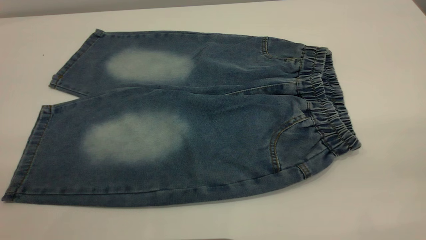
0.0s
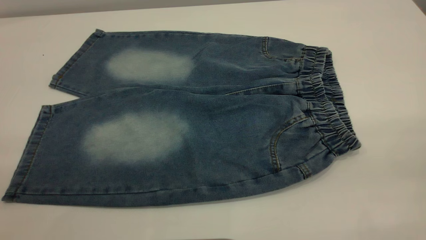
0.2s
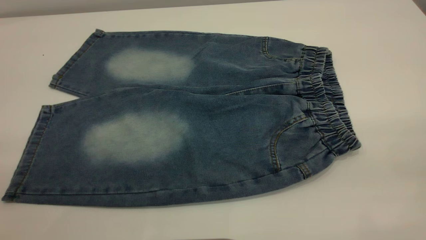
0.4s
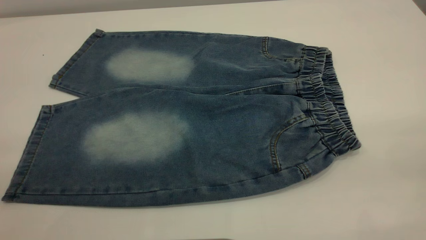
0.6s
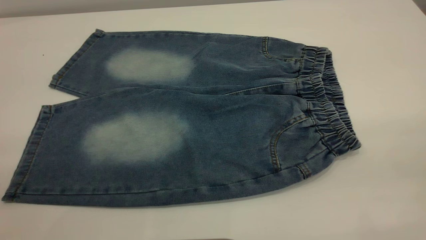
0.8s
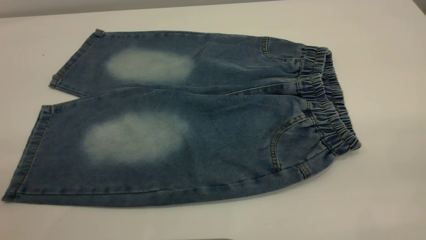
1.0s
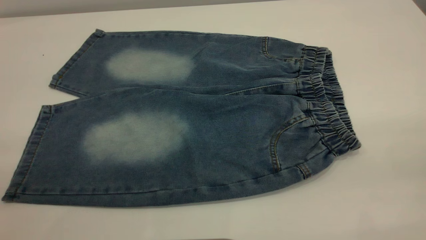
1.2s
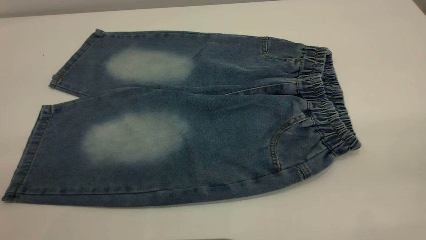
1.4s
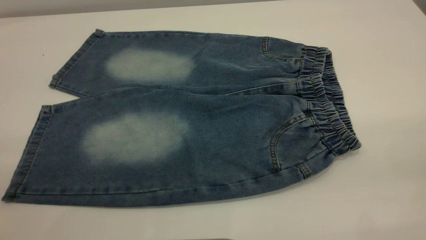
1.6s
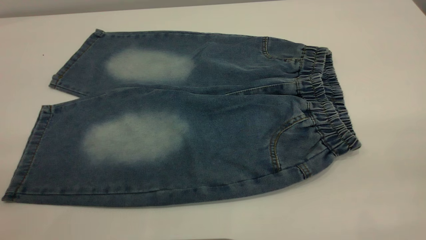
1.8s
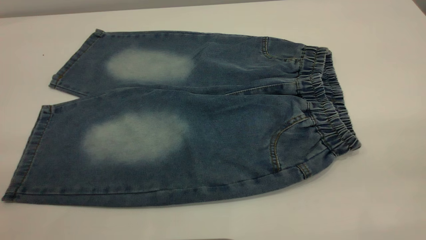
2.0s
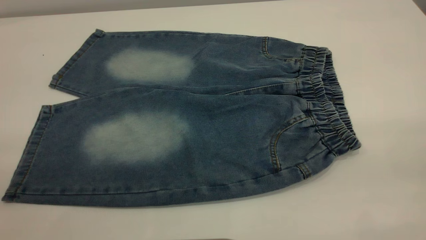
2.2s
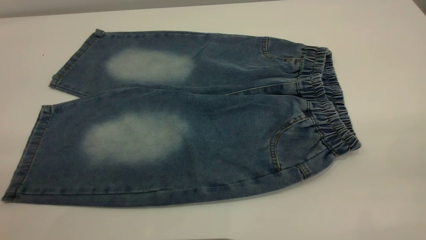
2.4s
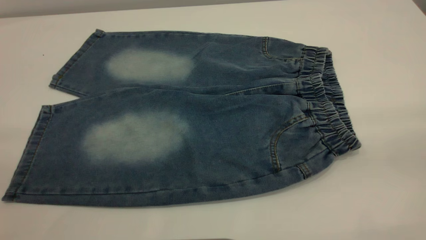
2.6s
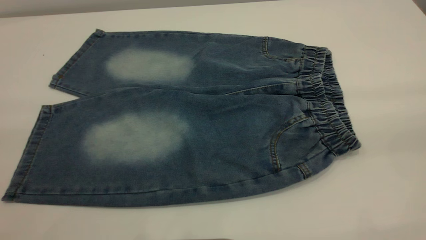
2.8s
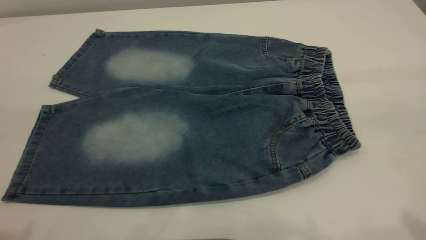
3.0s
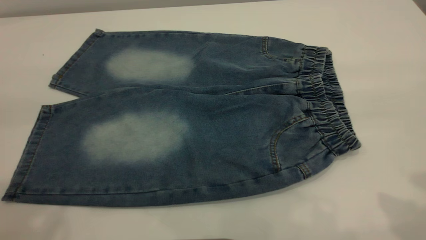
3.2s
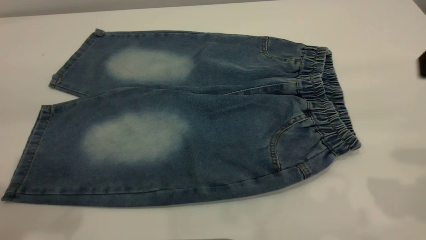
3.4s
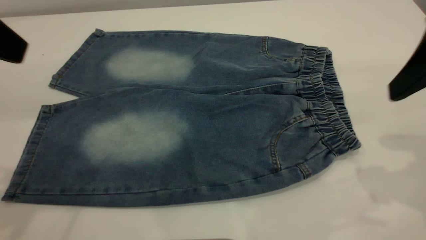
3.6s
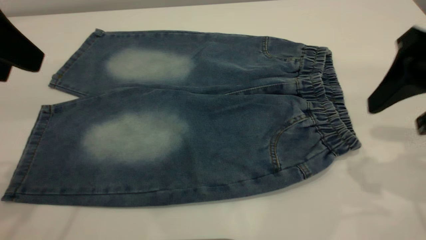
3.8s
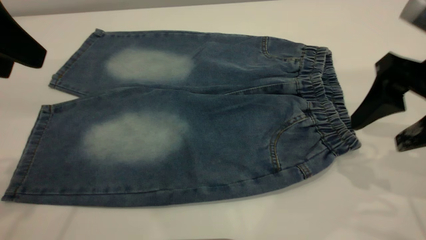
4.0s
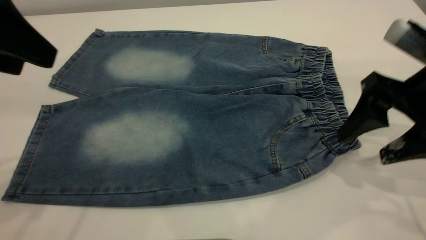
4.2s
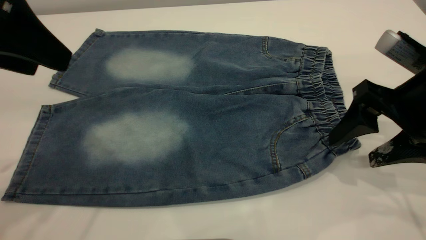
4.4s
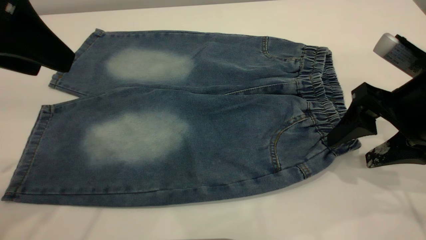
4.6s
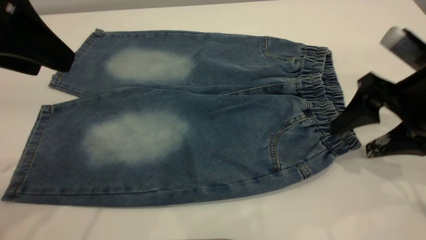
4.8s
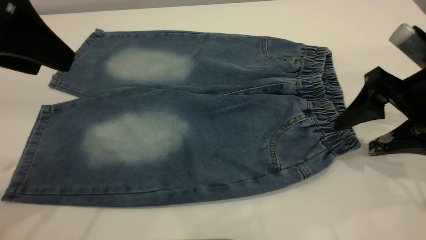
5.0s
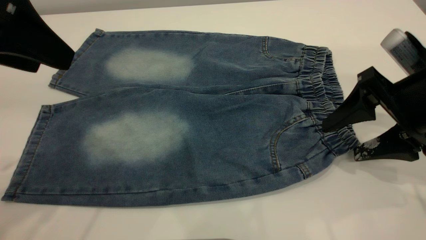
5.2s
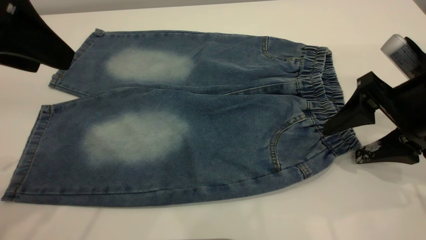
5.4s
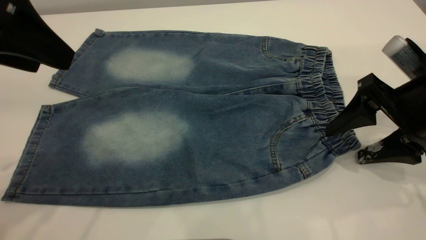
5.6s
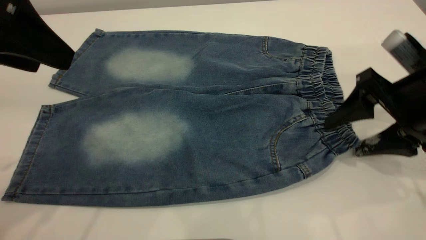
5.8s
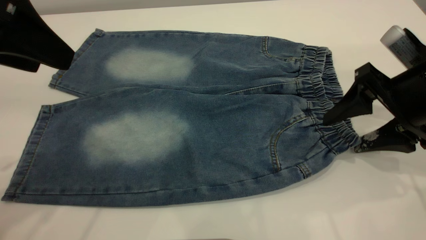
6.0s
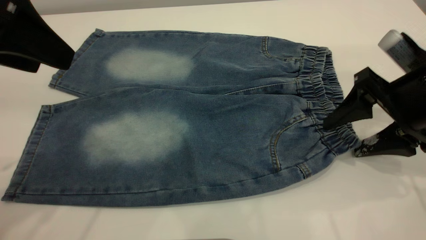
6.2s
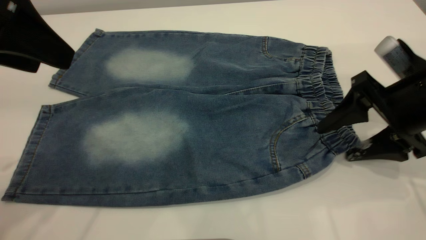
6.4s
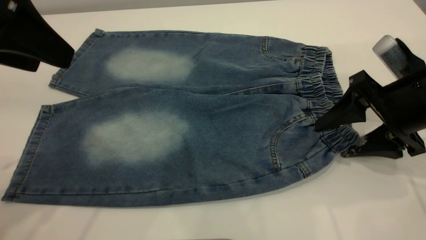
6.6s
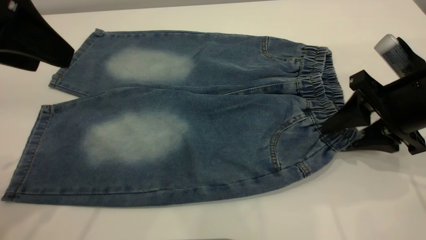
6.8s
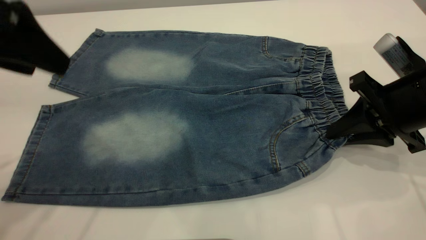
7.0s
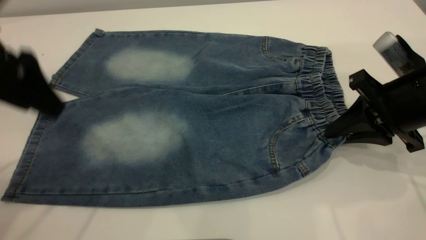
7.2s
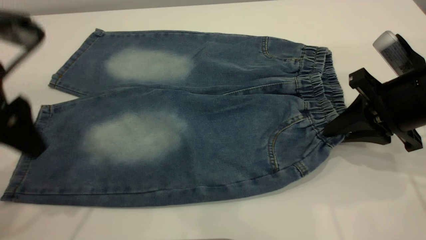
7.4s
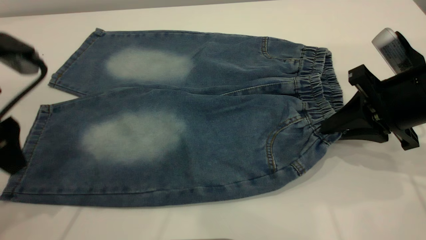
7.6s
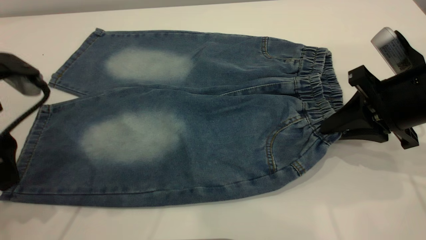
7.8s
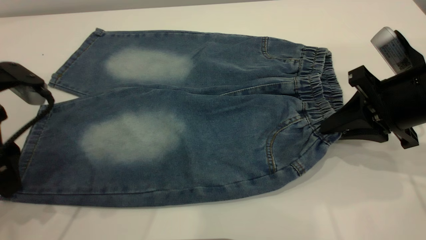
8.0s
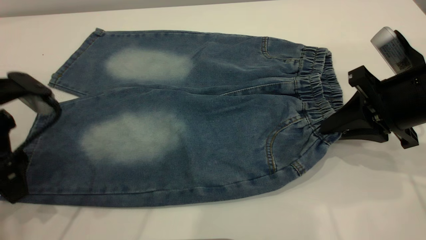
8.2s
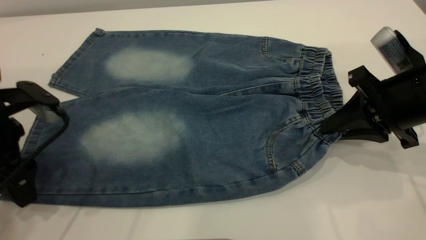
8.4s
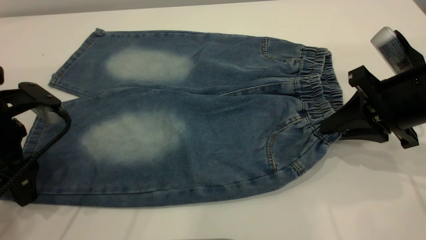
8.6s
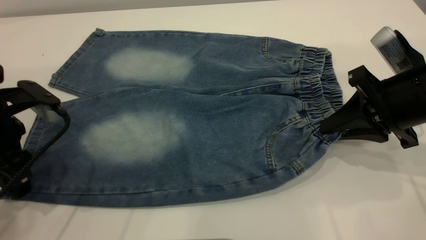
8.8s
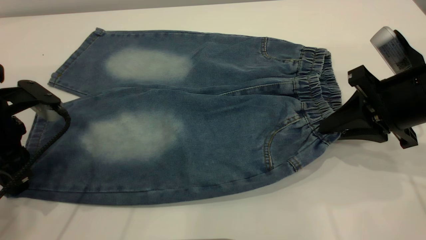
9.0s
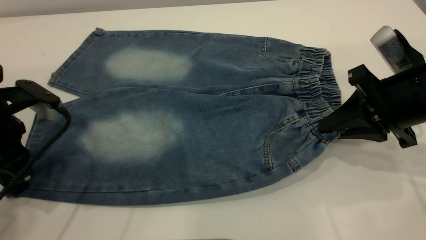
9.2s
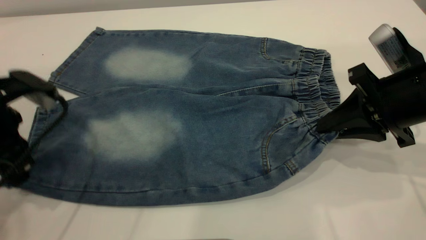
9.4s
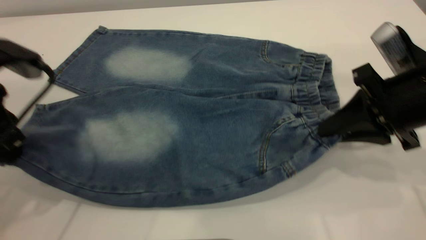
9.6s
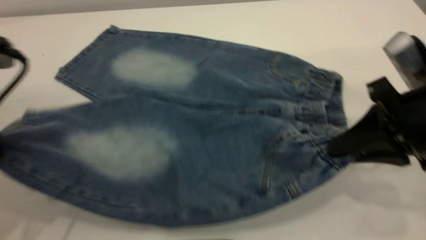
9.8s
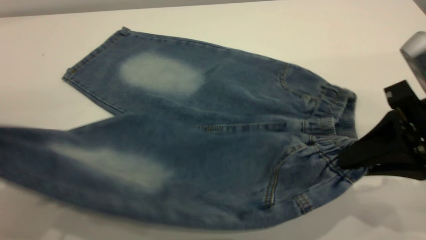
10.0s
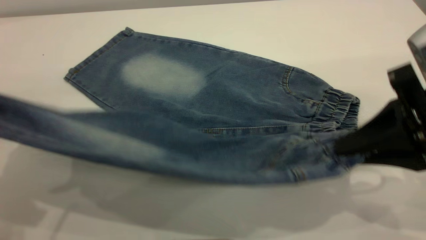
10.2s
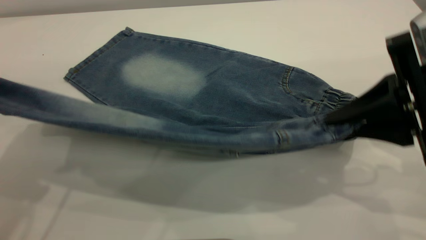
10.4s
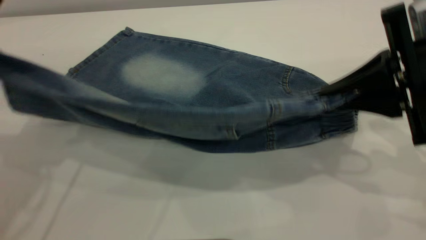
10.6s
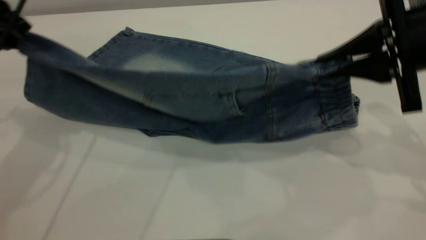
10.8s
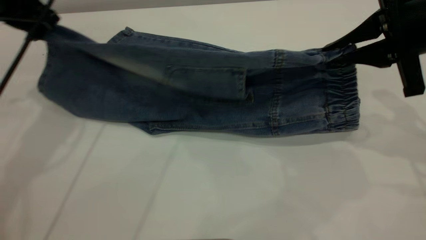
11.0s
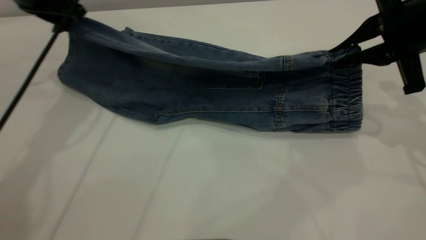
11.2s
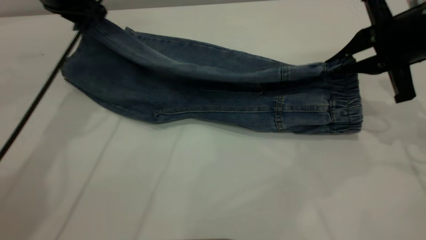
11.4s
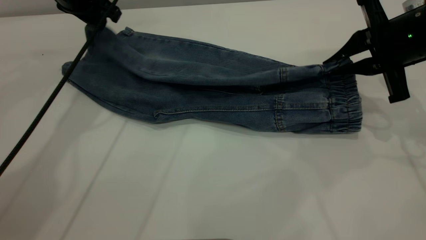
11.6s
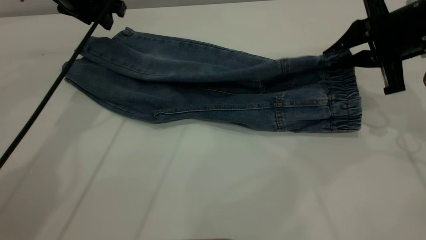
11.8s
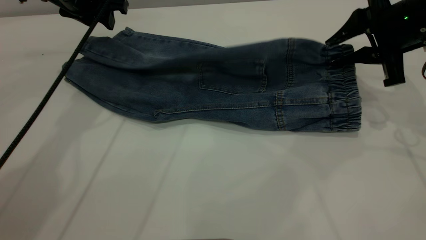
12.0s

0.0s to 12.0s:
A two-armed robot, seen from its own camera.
0.0s to 1.6s: Neither gripper changes place.
3.0s to 4.4s: The left gripper travels forward and downward by roughly 15 cm. Meanwhile the right gripper shifts some 25 cm downward and forward.
4.4s to 6.0s: The grippers stay close to where they were, moving slightly.
6.0s to 7.6s: The right gripper closes up, while the left gripper heads downward, covering approximately 10 cm.
7.6s to 9.0s: The left gripper goes approximately 5 cm downward, and closes.
9.0s to 10.4s: The left gripper travels upward by roughly 15 cm, while the right gripper shifts about 10 cm upward and backward.
10.4s to 12.0s: The left gripper shifts approximately 20 cm forward, and opens its fingers. Meanwhile the right gripper travels forward by roughly 15 cm, and opens up.

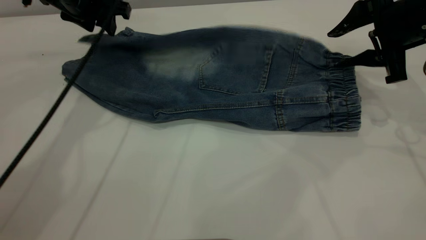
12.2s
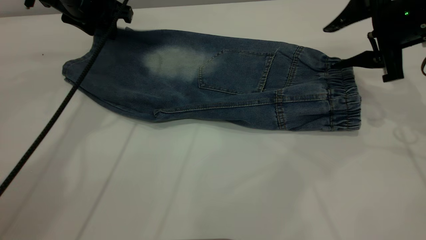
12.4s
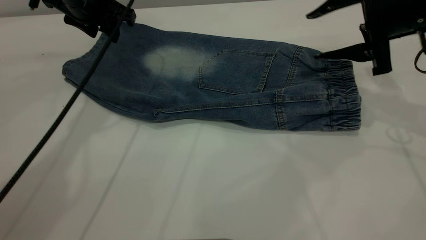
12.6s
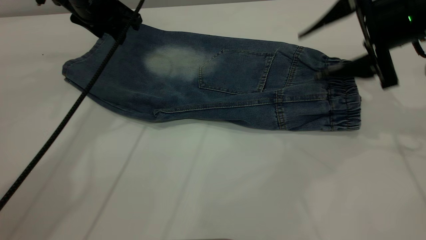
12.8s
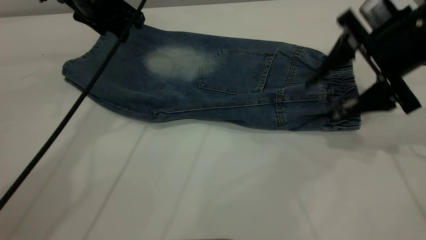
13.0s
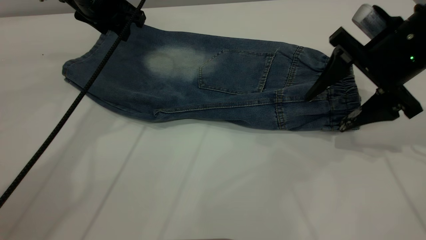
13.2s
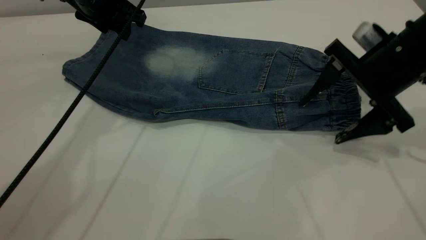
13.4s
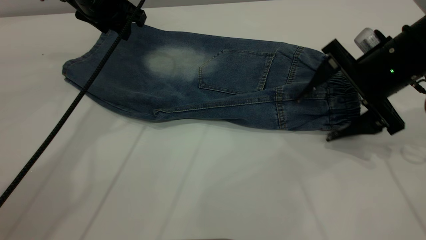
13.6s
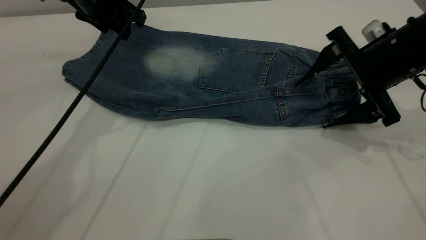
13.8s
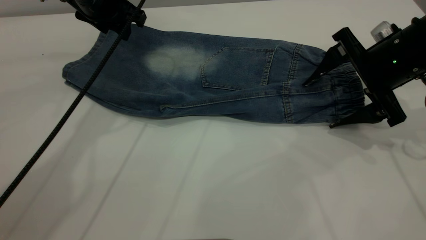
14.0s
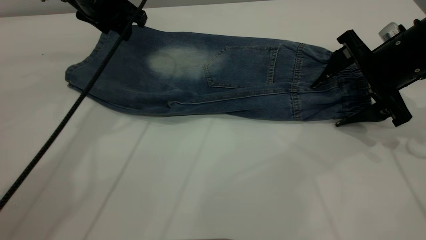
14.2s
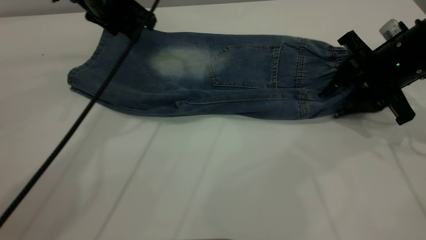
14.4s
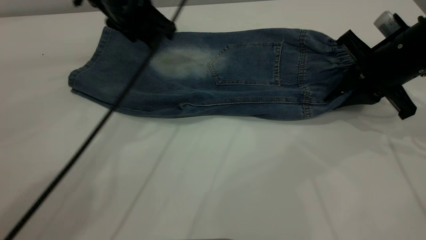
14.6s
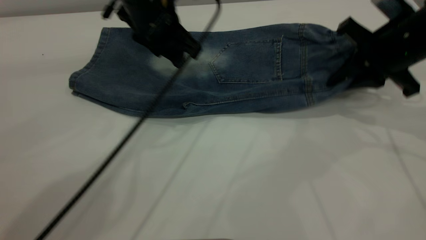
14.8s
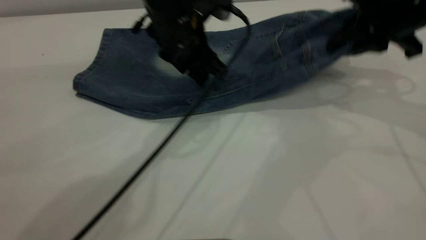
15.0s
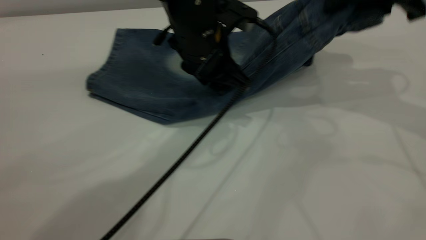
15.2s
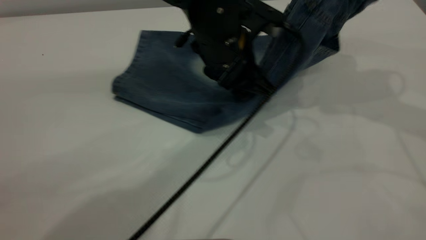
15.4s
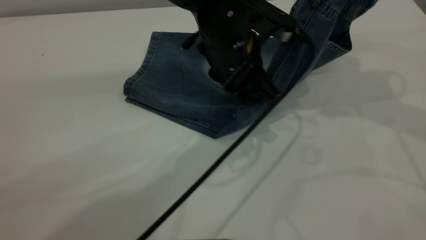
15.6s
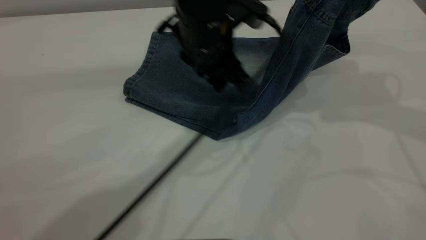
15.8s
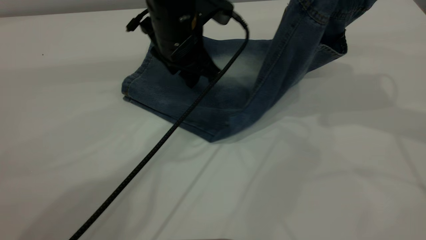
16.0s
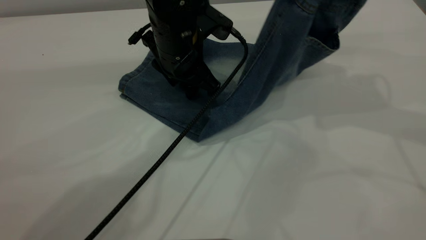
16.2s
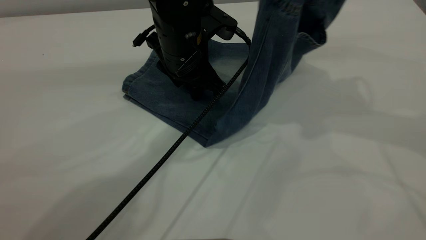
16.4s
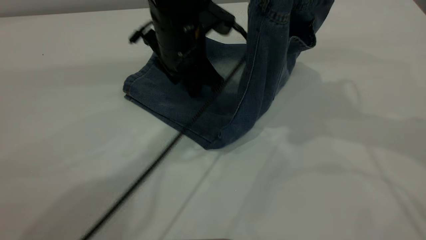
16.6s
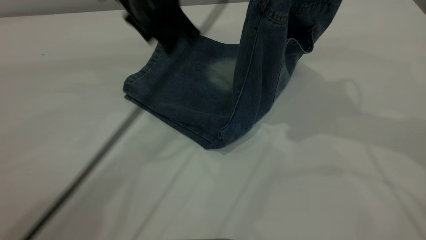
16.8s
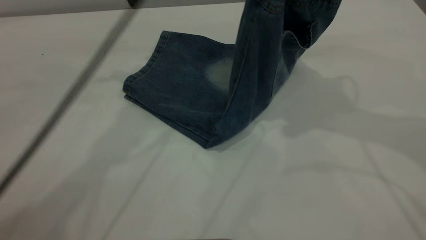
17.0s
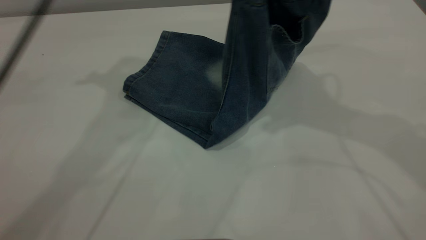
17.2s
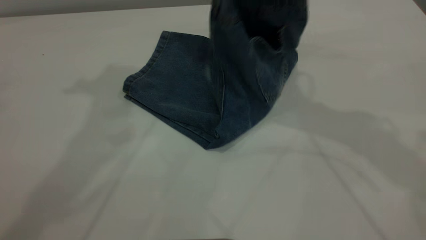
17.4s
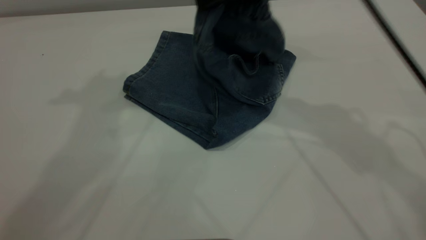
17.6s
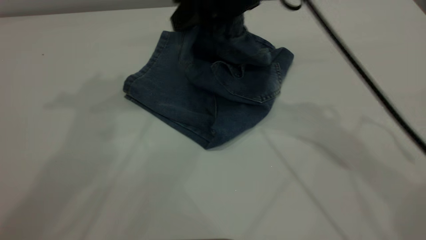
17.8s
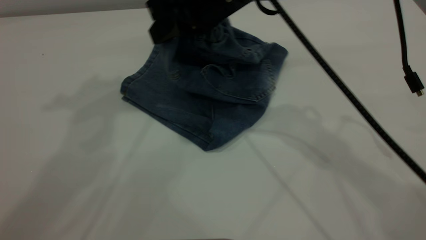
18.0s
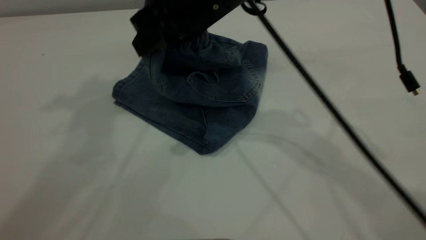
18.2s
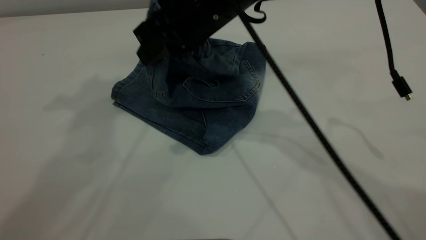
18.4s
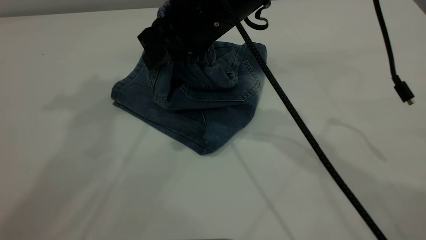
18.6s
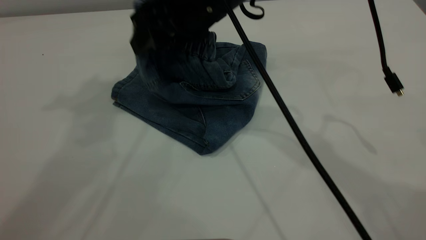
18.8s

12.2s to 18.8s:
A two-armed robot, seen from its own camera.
12.2s to 13.8s: The right gripper shifts by some 5 cm.
13.8s to 15.4s: The left gripper goes roughly 25 cm to the right and backward. Meanwhile the right gripper heads upward, covering roughly 15 cm, and closes its fingers.
15.4s to 17.2s: The right gripper shifts approximately 10 cm to the left, while the left gripper heads upward and to the left, covering roughly 30 cm.
17.2s to 18.8s: The right gripper travels to the left and downward by approximately 15 cm, and opens up; the left gripper is displaced upward and backward by about 10 cm.
